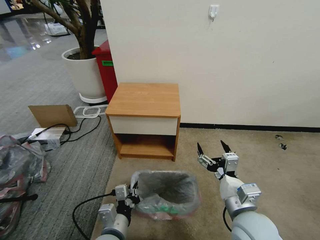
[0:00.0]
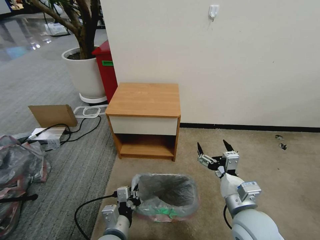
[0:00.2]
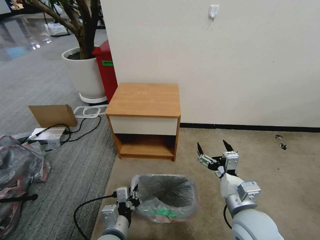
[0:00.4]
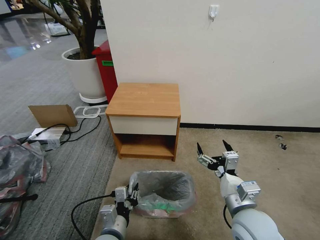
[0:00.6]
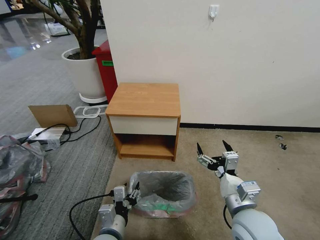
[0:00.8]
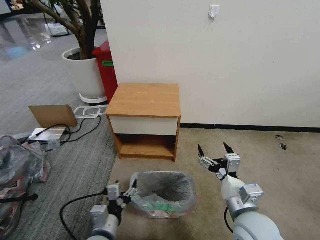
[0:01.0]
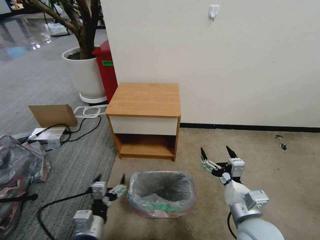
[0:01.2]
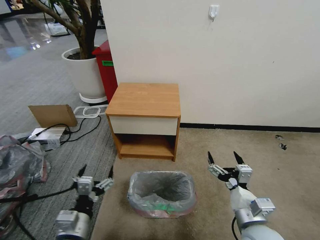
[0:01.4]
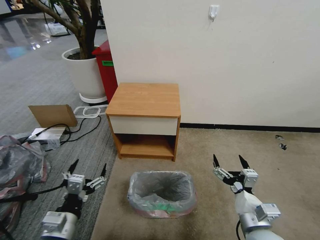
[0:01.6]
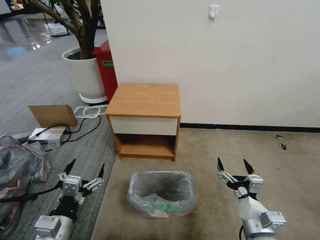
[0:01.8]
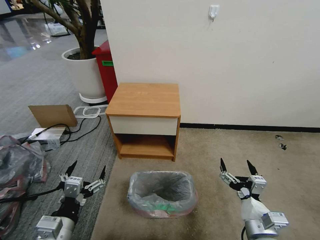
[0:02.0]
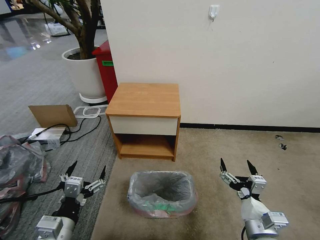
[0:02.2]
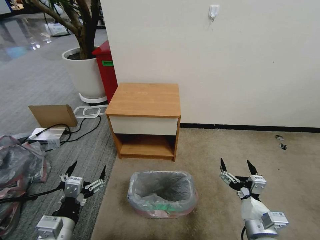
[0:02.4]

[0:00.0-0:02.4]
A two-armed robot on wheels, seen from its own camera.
Task of the whole recording: Pick up the garbage bag from the table and place it over the trash can.
0:00.0 to 0:01.2: The left gripper moves to the left, some 5 cm, and opens its fingers.
0:01.2 to 0:02.4: The left gripper travels upward and to the left by some 10 cm. The right gripper shifts by about 5 cm.

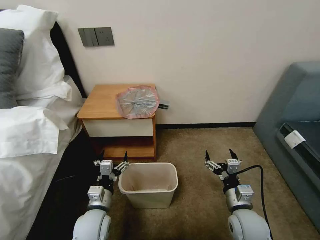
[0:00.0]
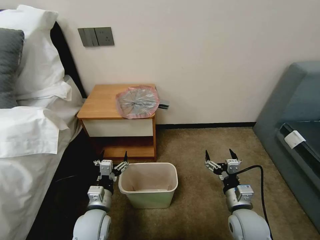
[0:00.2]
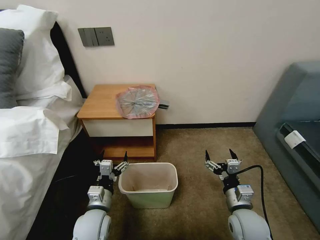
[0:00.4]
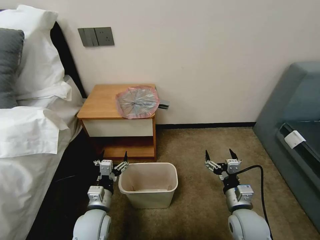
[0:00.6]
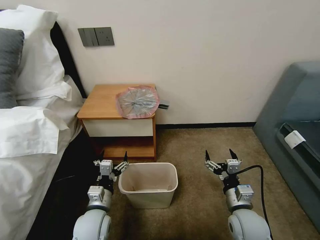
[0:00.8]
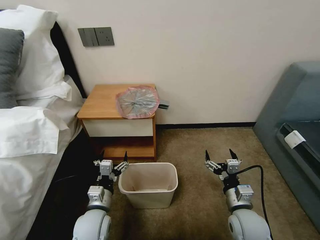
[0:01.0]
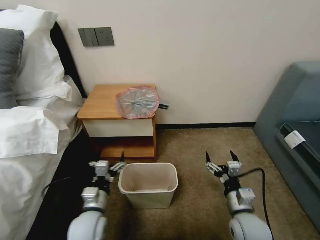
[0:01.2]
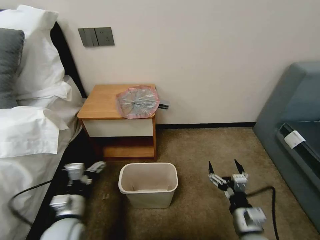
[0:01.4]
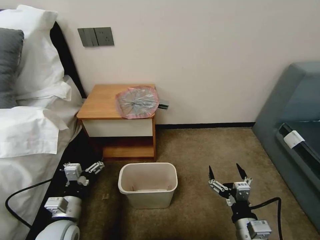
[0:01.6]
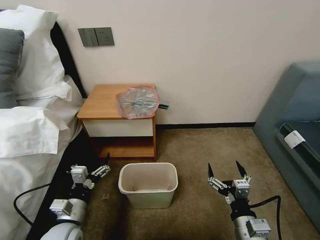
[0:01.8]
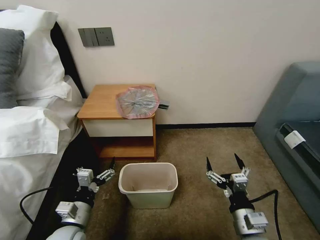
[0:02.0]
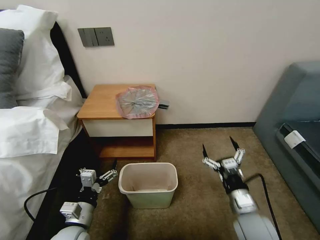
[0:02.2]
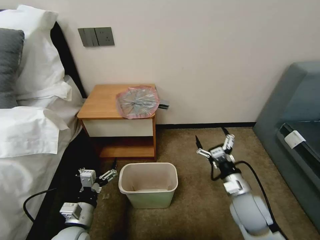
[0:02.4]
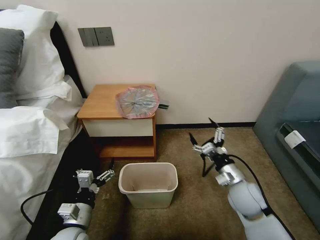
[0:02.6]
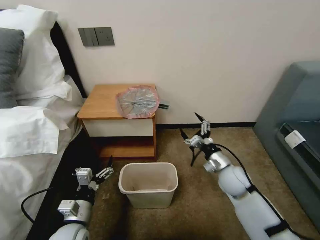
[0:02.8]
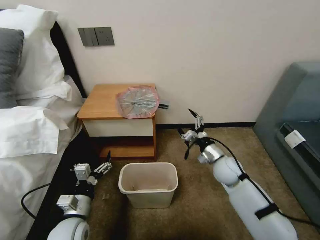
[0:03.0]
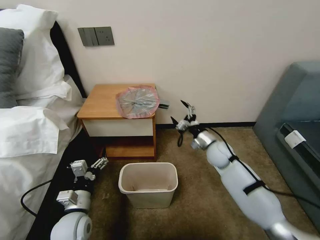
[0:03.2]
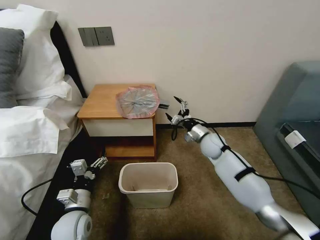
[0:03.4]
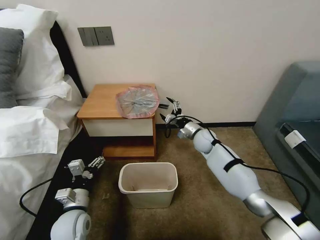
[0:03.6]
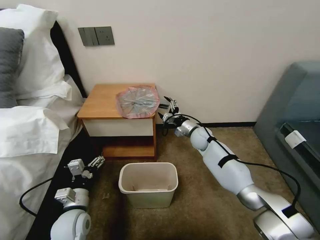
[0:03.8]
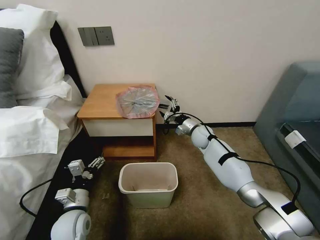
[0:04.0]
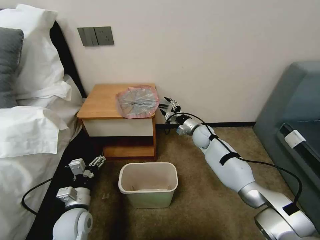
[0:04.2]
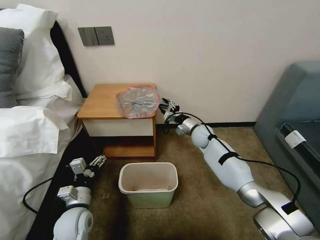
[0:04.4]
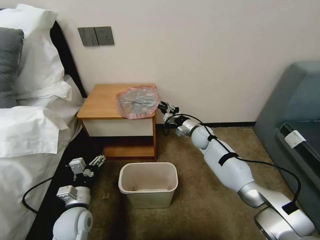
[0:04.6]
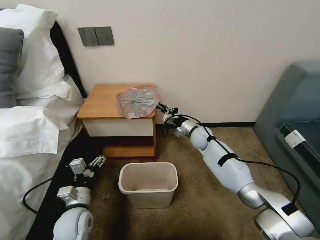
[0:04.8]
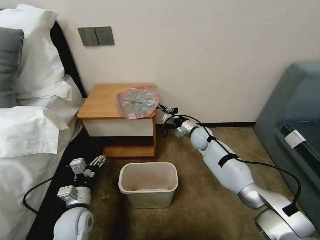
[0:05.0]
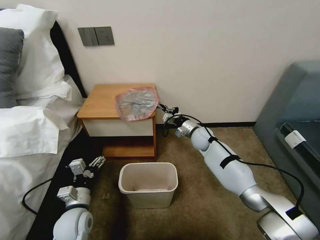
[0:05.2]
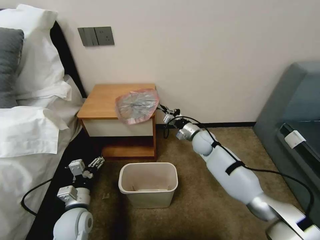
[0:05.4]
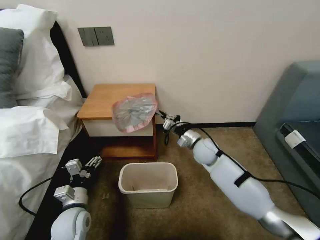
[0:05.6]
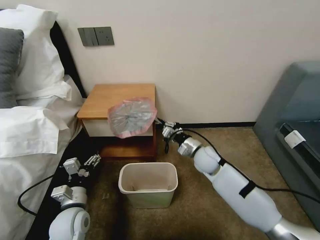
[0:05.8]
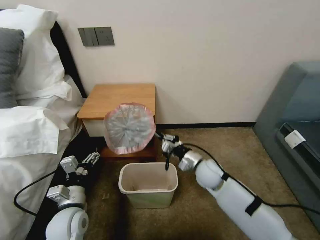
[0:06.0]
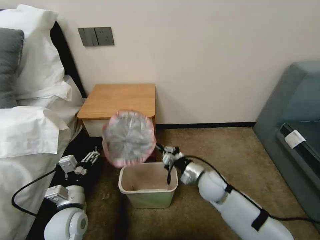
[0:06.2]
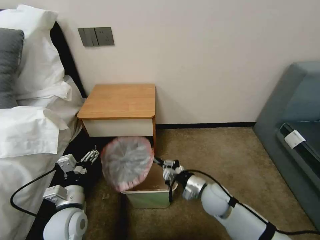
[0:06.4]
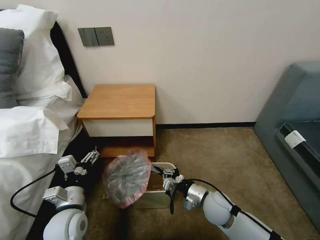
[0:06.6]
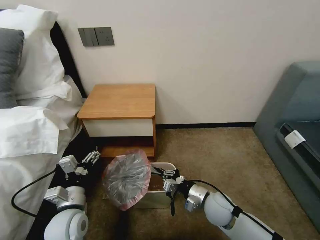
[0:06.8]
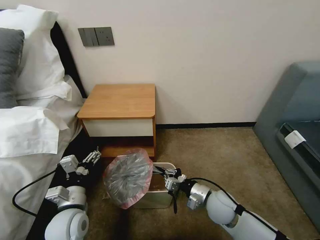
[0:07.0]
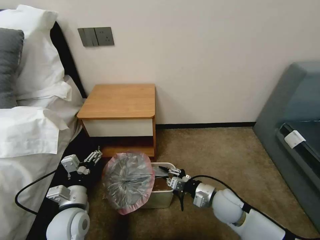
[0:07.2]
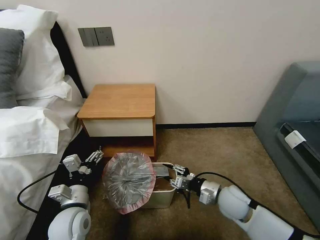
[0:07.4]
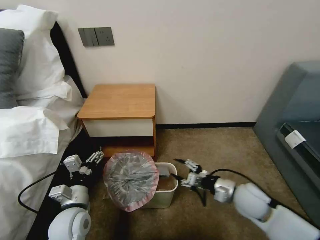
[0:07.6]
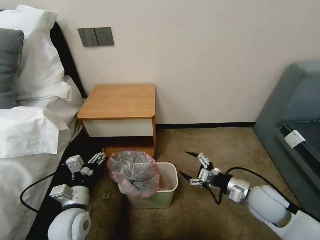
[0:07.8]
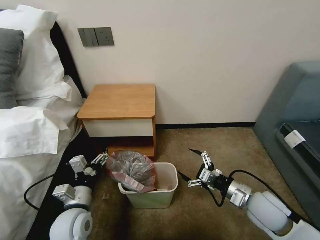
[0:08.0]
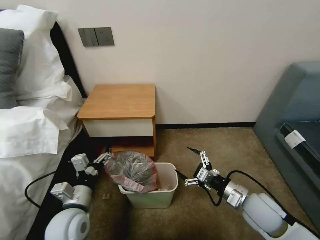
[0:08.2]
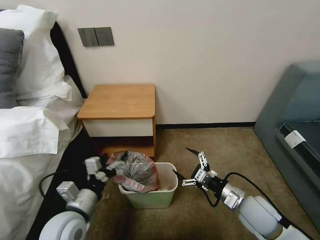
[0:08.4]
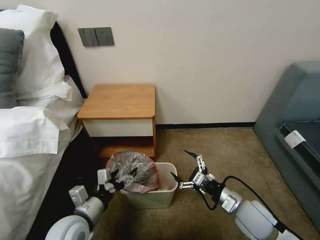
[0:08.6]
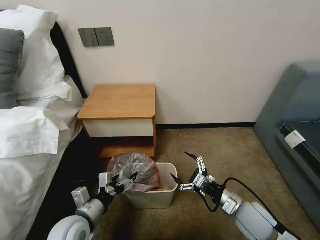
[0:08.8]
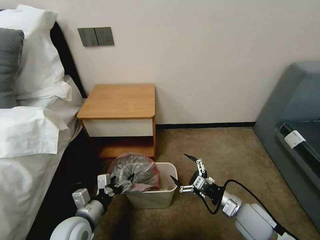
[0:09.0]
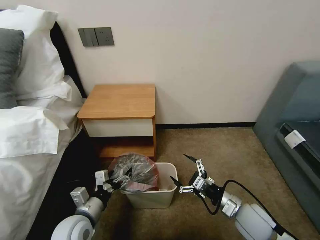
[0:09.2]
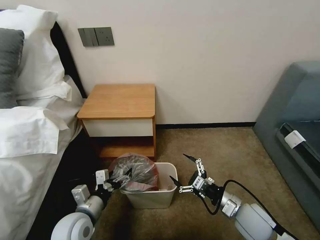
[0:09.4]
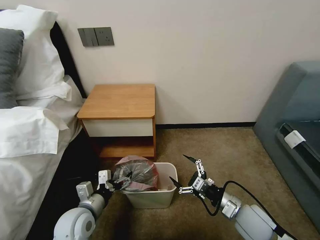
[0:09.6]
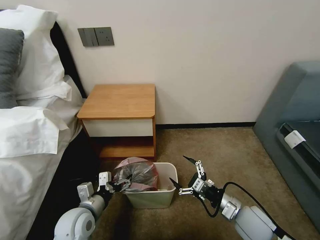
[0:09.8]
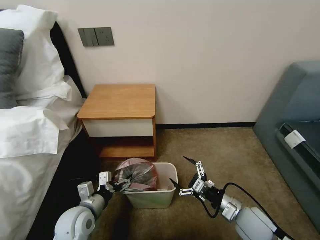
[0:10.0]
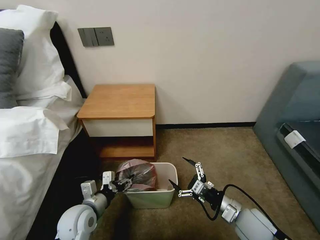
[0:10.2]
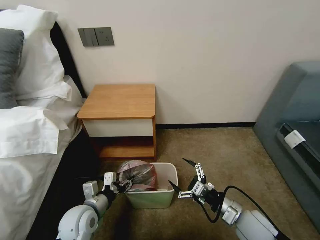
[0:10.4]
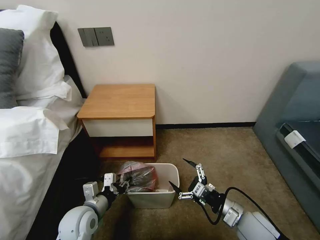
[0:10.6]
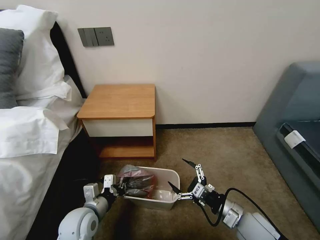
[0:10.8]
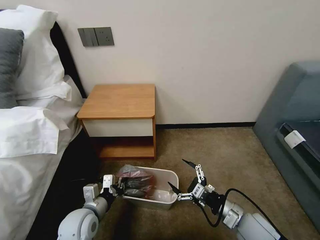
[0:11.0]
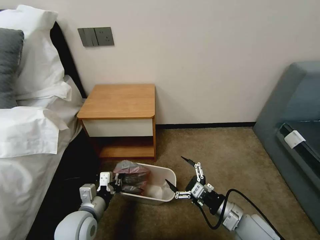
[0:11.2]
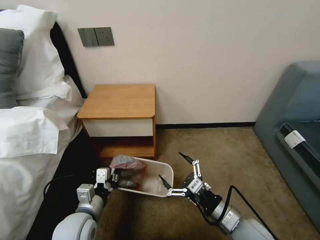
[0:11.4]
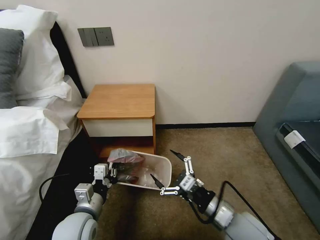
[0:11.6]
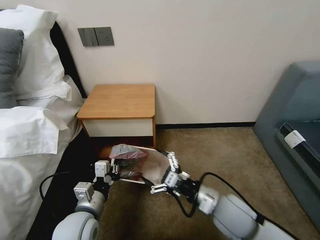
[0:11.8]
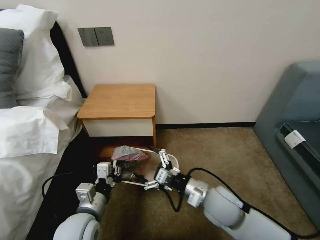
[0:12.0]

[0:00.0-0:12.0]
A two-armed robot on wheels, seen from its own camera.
Task of the whole recording: Pick up the garbage bag from the table and place it over the trash can.
0:01.6 to 0:03.0: The right gripper goes some 25 cm forward.
0:03.0 to 0:04.4: The right gripper shifts approximately 15 cm forward, and closes its fingers.
0:04.4 to 0:06.0: The right gripper is displaced backward by approximately 15 cm, and closes up.
0:06.0 to 0:07.6: The right gripper heads to the right and backward, covering some 15 cm, and opens up.
0:07.6 to 0:09.0: The right gripper moves backward, some 5 cm.
0:09.0 to 0:10.4: The left gripper closes its fingers.
0:10.4 to 0:12.0: The right gripper moves to the left, upward and forward, roughly 15 cm; the left gripper shifts some 5 cm upward, and closes.

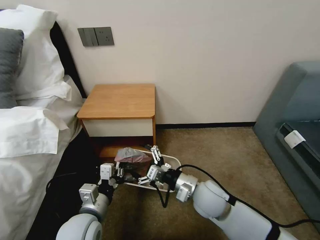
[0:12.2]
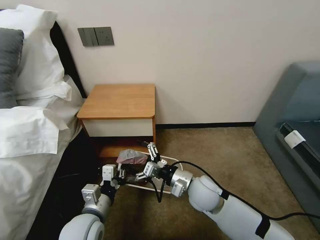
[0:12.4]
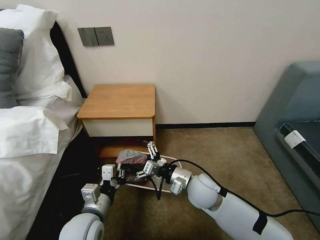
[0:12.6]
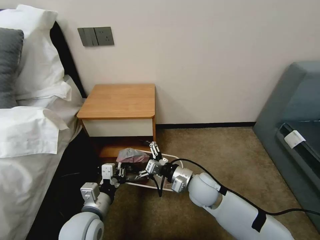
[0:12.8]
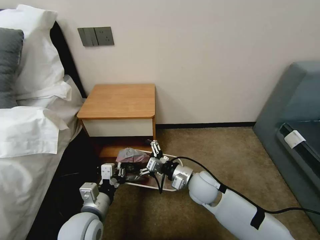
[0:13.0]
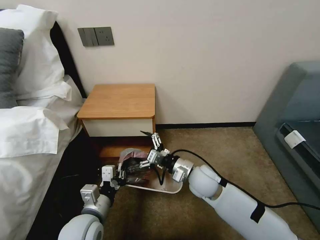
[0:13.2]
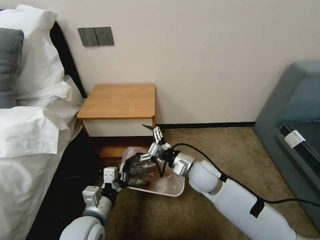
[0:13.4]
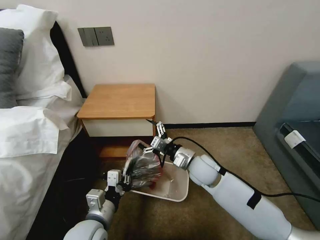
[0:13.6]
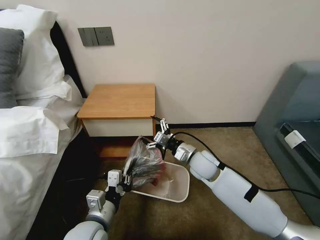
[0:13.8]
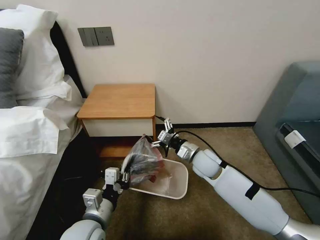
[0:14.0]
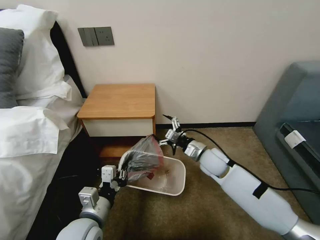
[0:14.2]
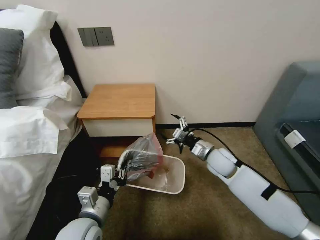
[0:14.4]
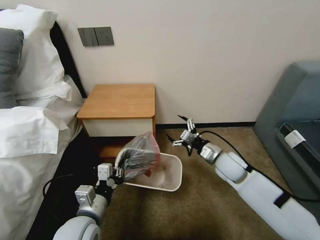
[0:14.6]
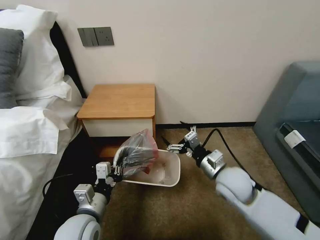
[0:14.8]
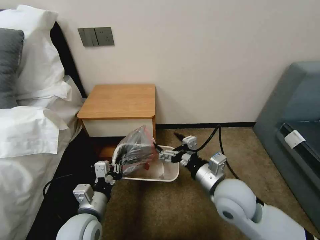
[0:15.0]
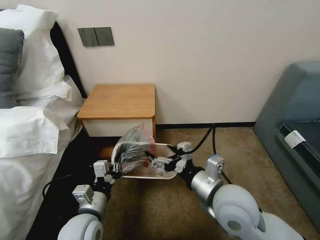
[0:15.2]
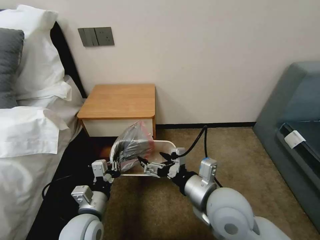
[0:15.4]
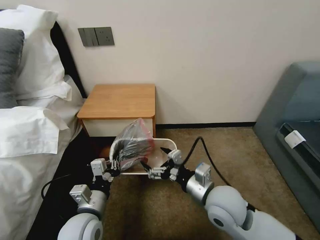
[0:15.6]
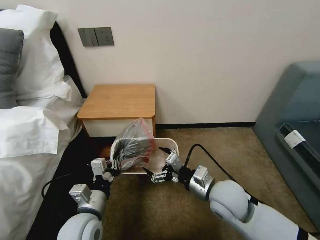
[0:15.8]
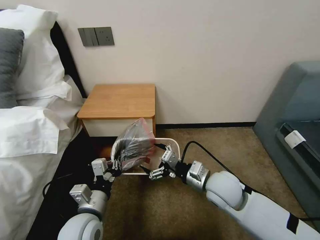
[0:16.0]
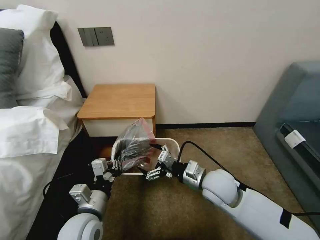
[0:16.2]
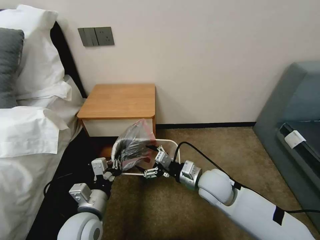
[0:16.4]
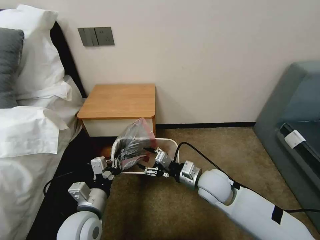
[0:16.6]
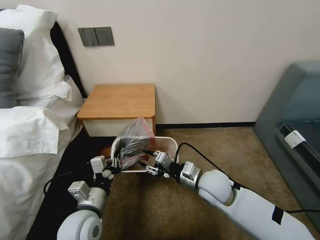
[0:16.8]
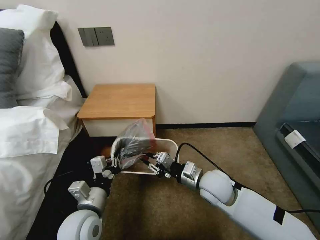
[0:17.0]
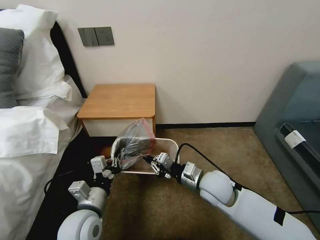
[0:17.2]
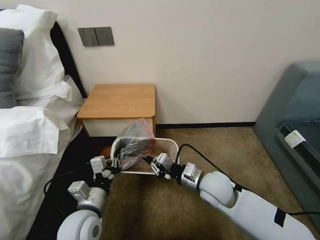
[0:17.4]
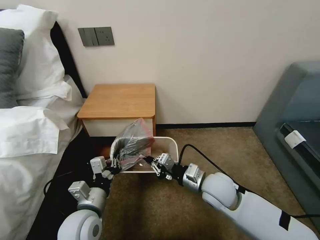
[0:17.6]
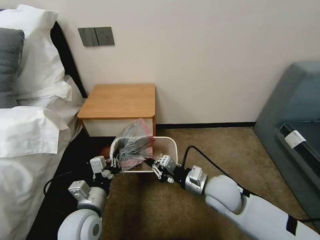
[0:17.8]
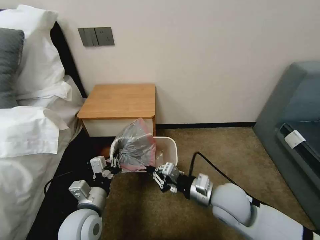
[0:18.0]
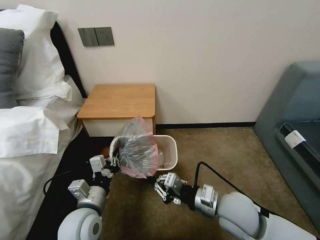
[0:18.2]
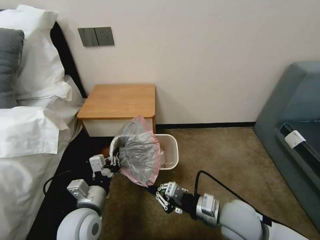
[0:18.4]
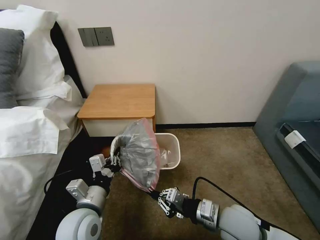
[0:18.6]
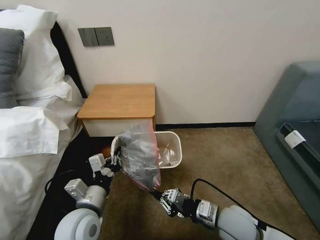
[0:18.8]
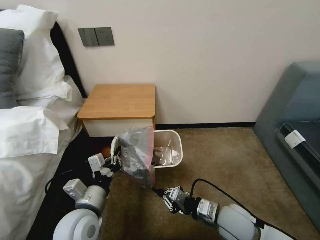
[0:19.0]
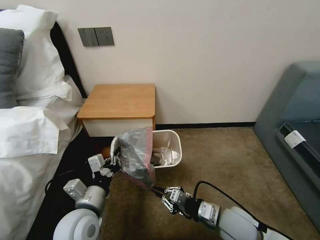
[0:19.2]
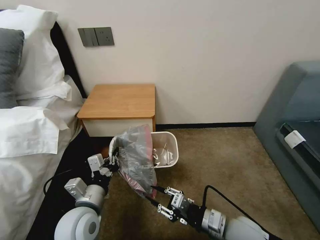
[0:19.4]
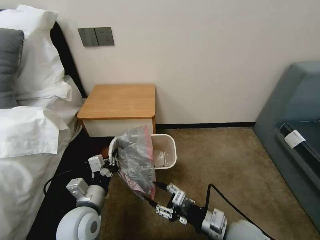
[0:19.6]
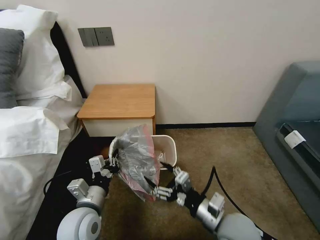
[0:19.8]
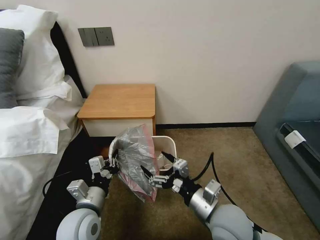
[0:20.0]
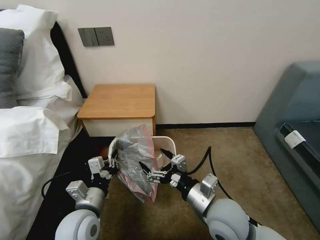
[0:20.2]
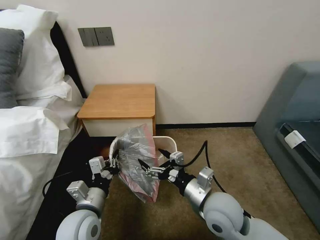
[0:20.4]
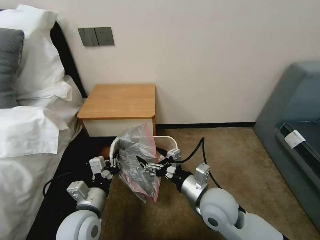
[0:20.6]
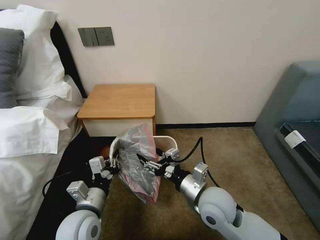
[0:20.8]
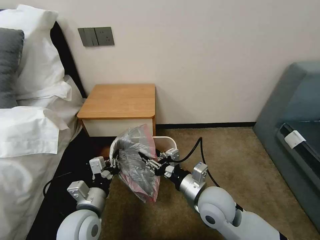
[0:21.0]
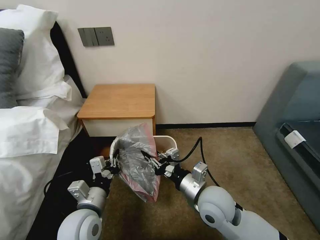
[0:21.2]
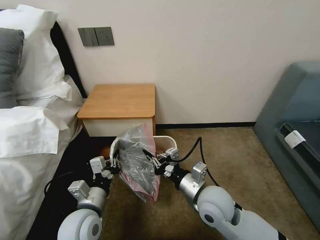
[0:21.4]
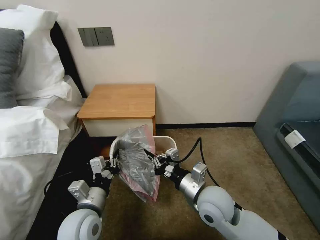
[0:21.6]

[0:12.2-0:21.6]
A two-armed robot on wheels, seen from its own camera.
Task of the whole recording: Pick up the garbage bag from the table and place it over the trash can.
0:12.2 to 0:13.8: The right gripper is displaced forward by roughly 10 cm.
0:13.8 to 0:15.4: The right gripper travels backward and upward by some 20 cm.
0:15.4 to 0:17.0: The right gripper moves forward and downward, some 10 cm, and closes up.
0:17.0 to 0:18.4: The right gripper shifts approximately 10 cm backward.
0:18.4 to 0:20.0: The right gripper opens up.
0:20.0 to 0:21.6: The right gripper travels forward by roughly 5 cm, and closes.
